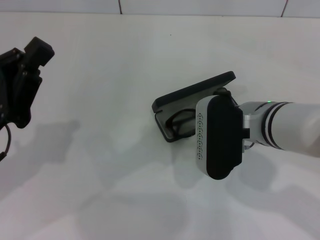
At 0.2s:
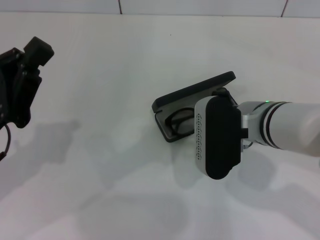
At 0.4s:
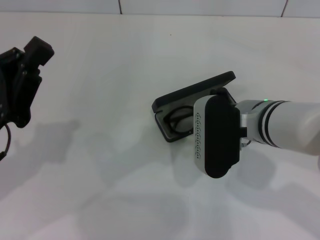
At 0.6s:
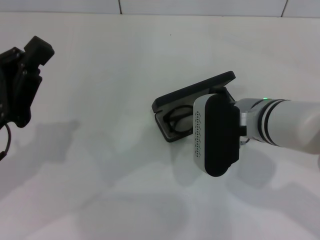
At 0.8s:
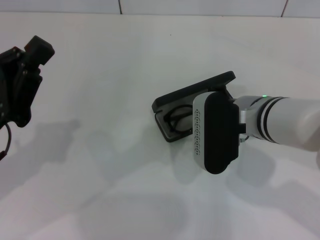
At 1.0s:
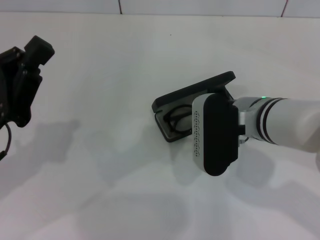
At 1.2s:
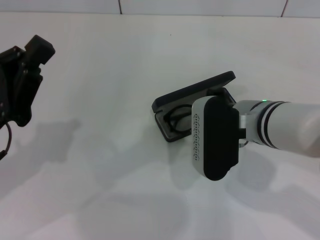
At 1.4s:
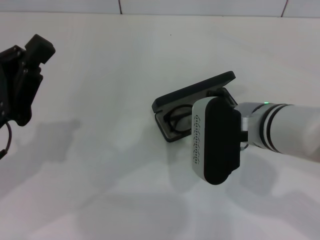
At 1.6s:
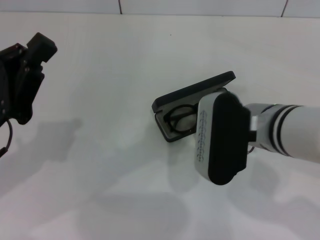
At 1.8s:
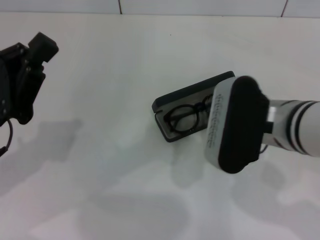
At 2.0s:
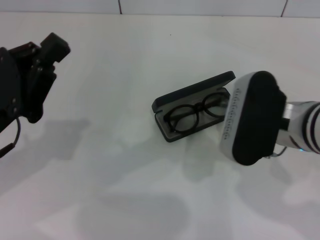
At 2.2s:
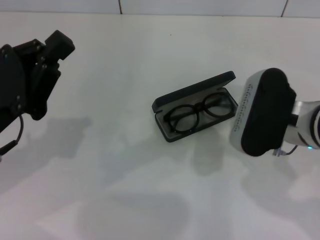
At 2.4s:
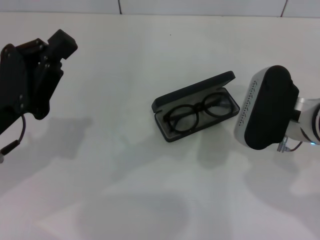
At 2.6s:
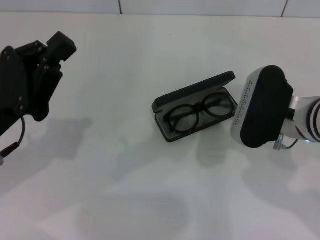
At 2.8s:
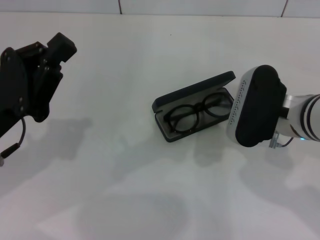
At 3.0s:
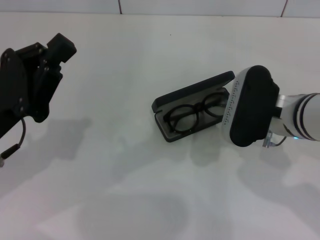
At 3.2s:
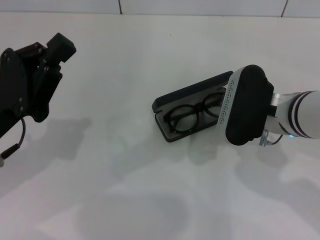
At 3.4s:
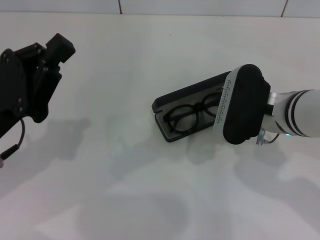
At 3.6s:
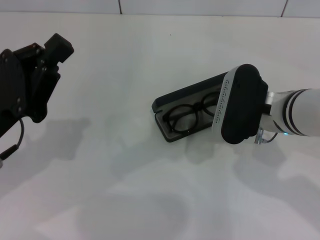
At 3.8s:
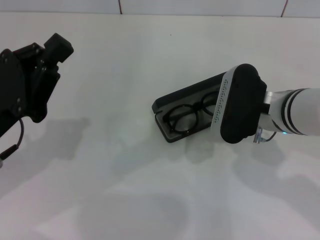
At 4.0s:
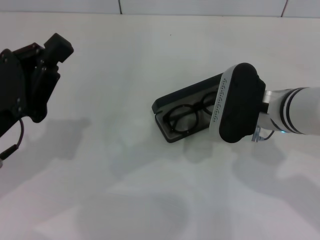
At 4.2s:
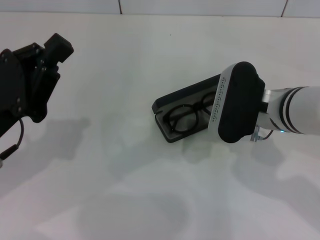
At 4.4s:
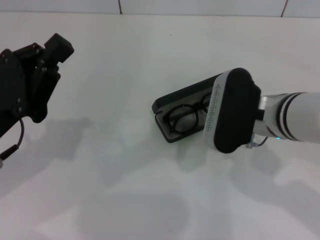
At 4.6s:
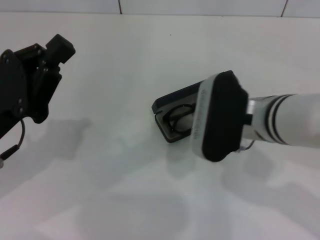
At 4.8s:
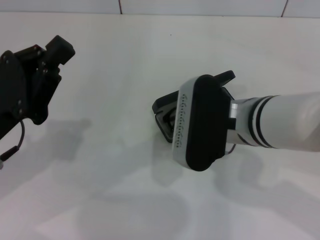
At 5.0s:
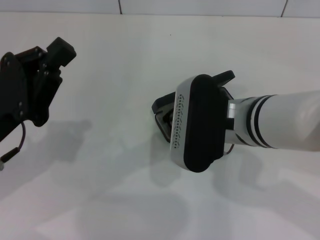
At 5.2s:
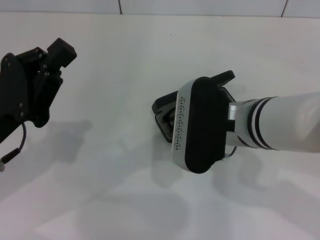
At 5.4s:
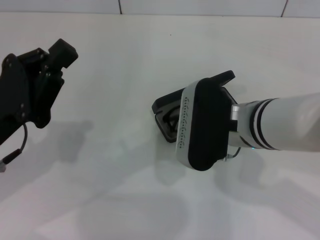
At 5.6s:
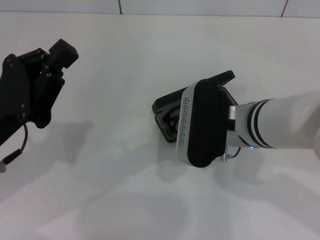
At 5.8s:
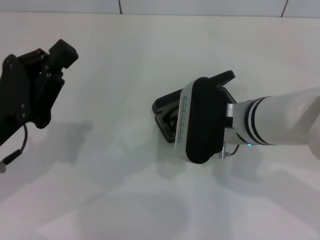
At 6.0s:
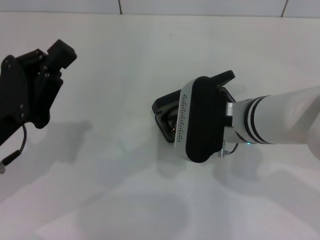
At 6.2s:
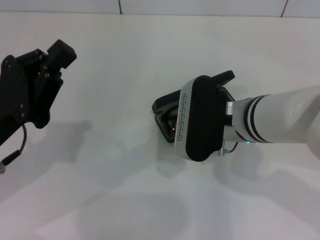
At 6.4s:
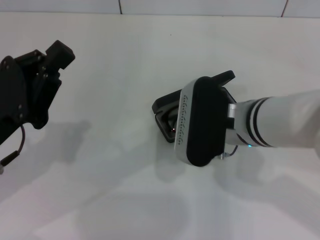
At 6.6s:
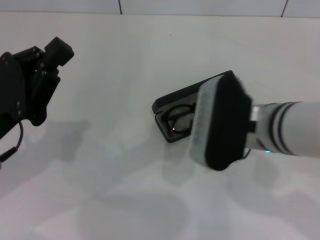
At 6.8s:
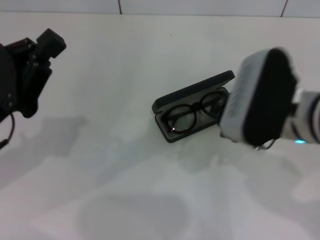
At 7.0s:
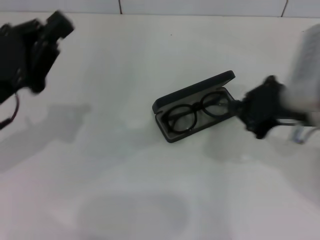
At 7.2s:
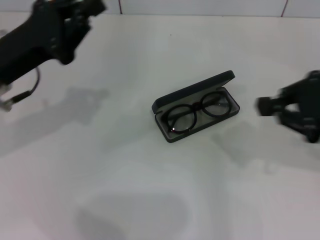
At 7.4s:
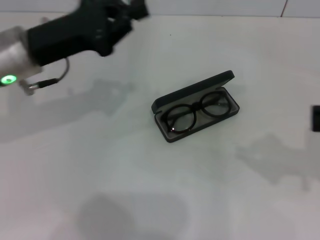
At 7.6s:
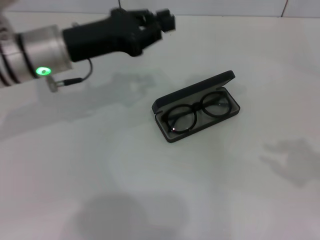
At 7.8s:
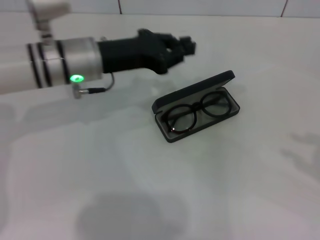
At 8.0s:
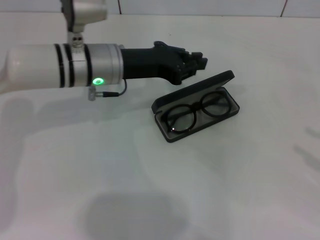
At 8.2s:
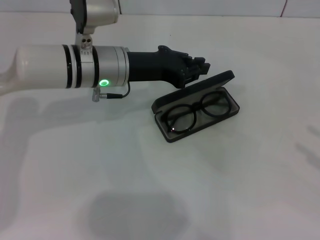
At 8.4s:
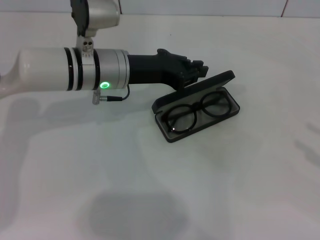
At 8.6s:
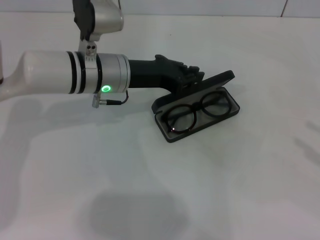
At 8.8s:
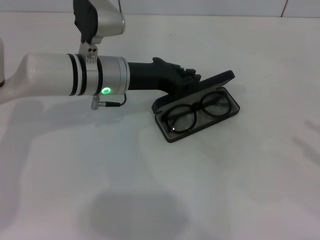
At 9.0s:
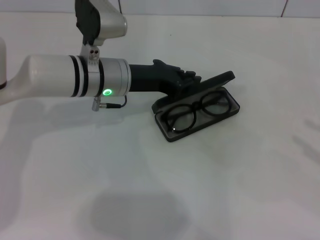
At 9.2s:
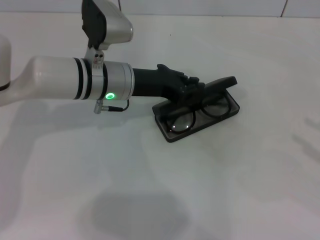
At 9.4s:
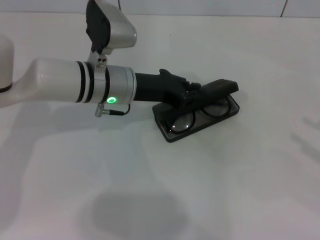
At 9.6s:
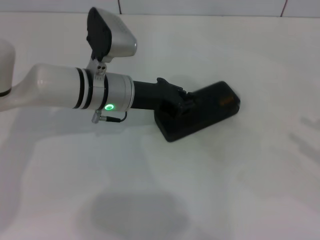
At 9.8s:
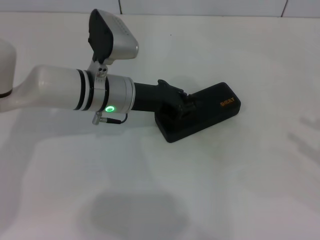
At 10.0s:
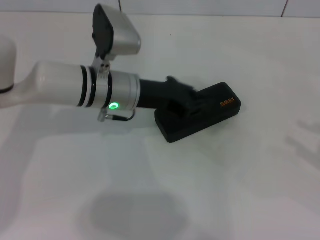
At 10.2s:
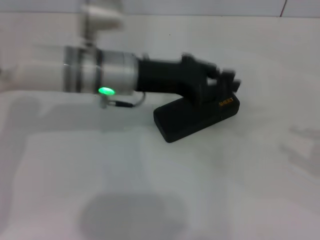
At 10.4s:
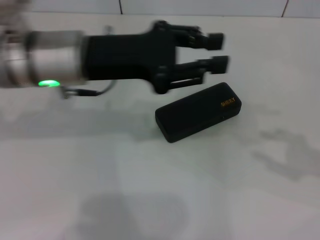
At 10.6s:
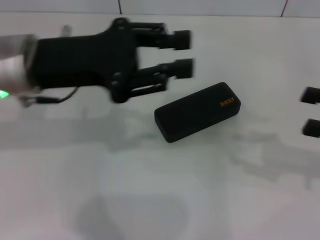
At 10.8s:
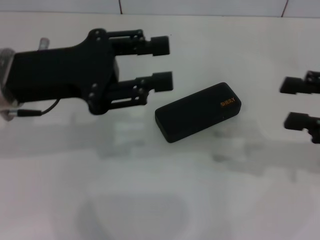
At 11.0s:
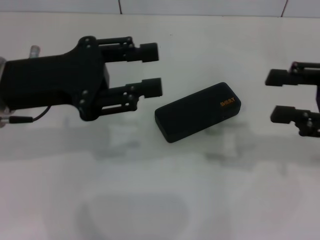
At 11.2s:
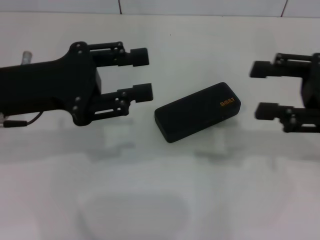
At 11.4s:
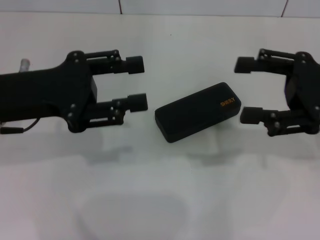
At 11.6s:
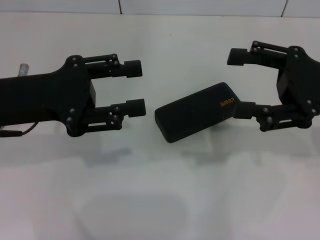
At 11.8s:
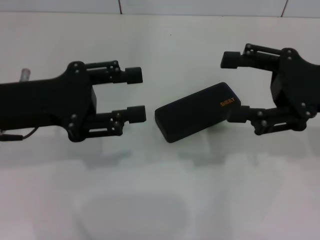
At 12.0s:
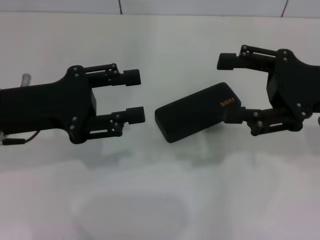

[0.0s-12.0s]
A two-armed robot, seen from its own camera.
Step, 0.0s to 9.6s: Close the glasses case with your left hand.
0.0s to 1.6s: The grippers make only small movements.
1.6s to 3.0s: The right gripper moves about 5 cm.
3.0s to 4.4s: The grippers move only a little.
4.4s to 6.0s: The grippers stay close to where they were, moving slightly.
6.0s to 7.6s: The right gripper travels to the right by roughly 30 cm. Meanwhile the left gripper shifts approximately 15 cm forward and to the right.
7.6s to 9.0s: The two grippers go about 10 cm to the right and downward. The right gripper opens up.
9.0s to 10.4s: The right gripper shifts roughly 5 cm to the left. The left gripper goes approximately 10 cm upward and backward.
10.4s to 12.0s: The right gripper travels to the left and forward by roughly 15 cm, and opens up; the left gripper travels to the left and backward by approximately 10 cm, and opens up.

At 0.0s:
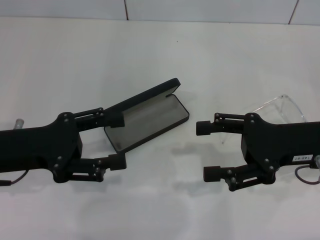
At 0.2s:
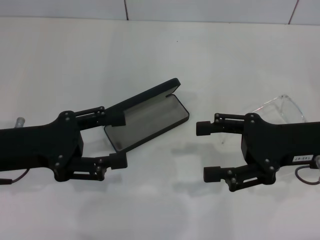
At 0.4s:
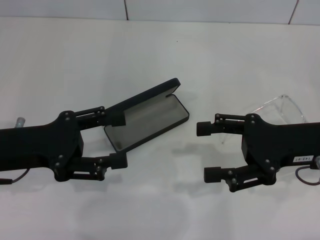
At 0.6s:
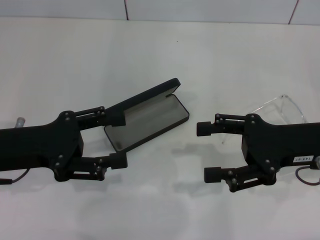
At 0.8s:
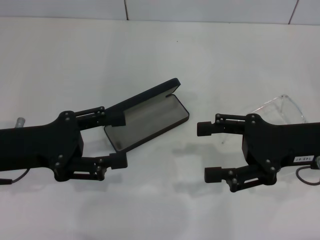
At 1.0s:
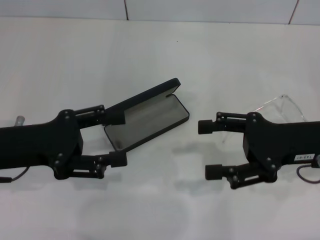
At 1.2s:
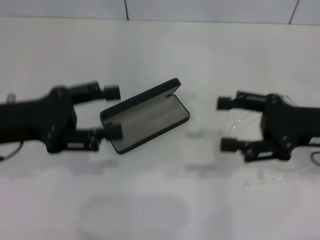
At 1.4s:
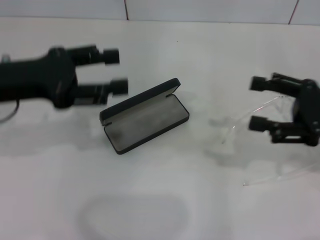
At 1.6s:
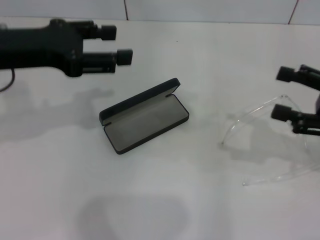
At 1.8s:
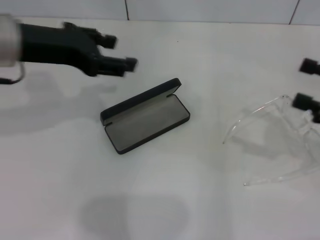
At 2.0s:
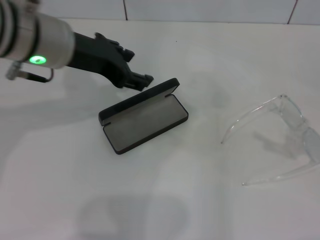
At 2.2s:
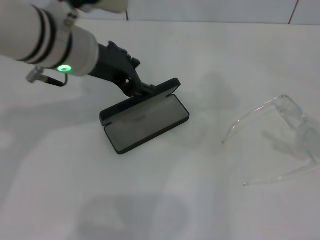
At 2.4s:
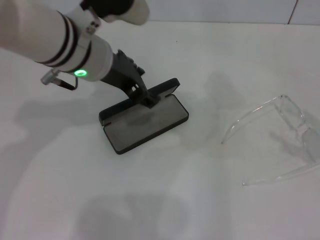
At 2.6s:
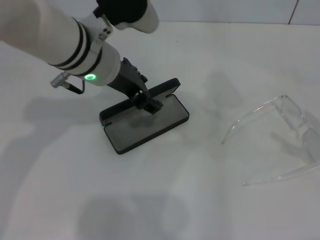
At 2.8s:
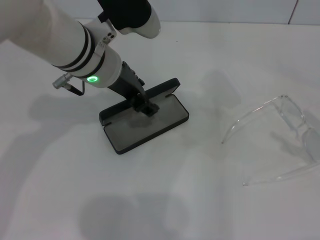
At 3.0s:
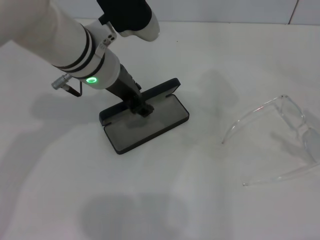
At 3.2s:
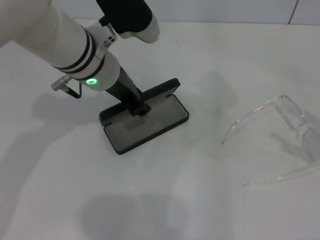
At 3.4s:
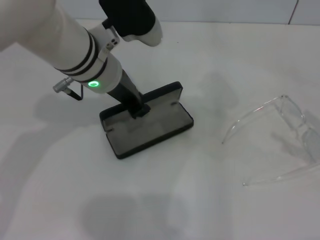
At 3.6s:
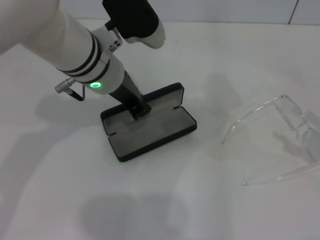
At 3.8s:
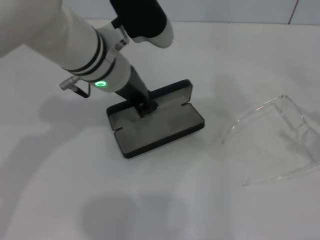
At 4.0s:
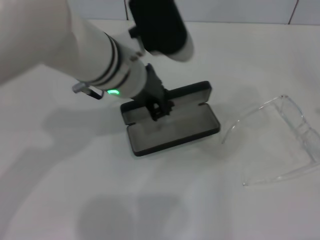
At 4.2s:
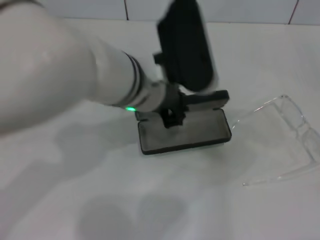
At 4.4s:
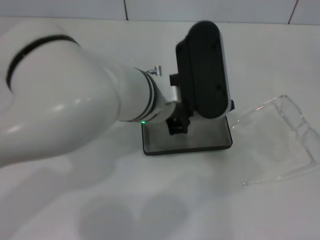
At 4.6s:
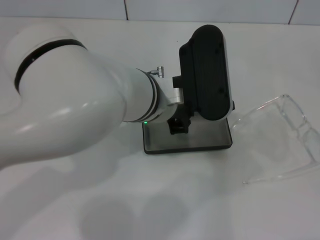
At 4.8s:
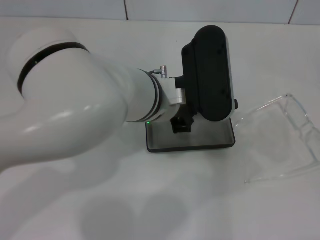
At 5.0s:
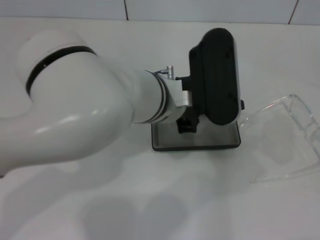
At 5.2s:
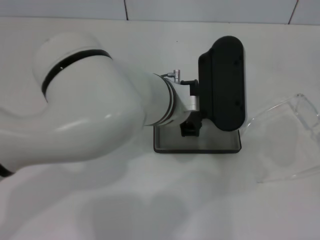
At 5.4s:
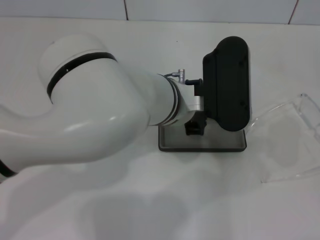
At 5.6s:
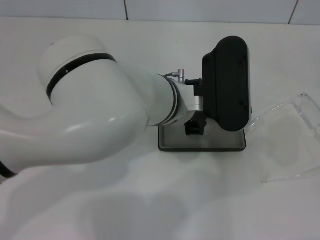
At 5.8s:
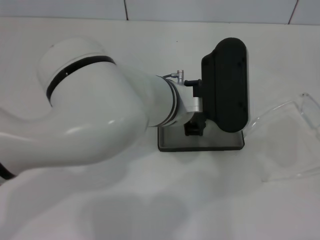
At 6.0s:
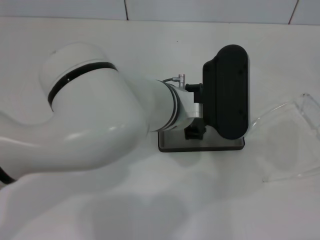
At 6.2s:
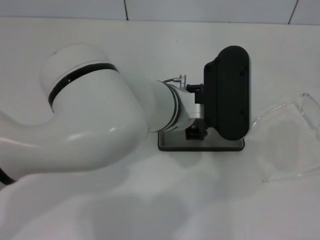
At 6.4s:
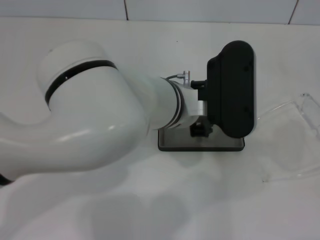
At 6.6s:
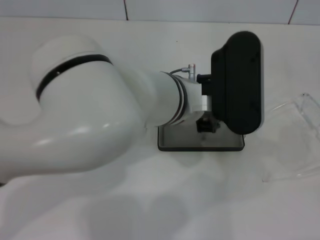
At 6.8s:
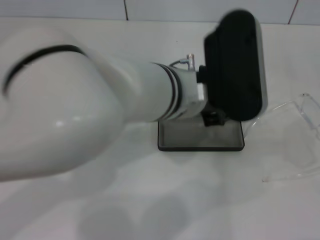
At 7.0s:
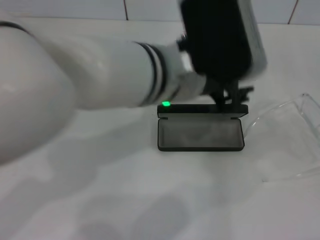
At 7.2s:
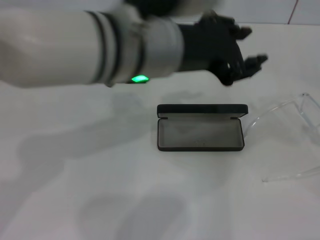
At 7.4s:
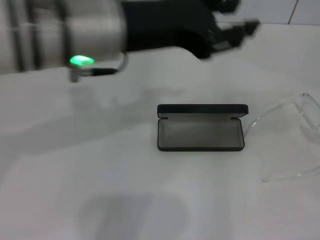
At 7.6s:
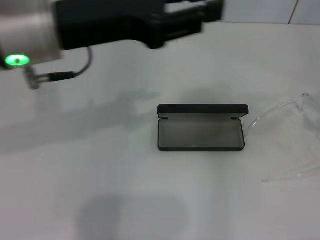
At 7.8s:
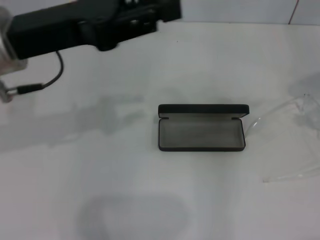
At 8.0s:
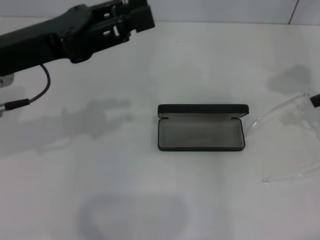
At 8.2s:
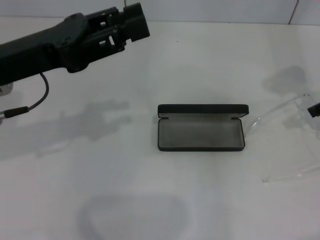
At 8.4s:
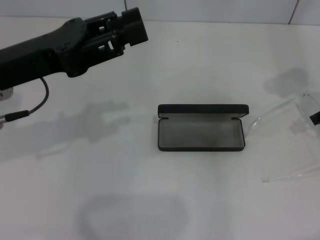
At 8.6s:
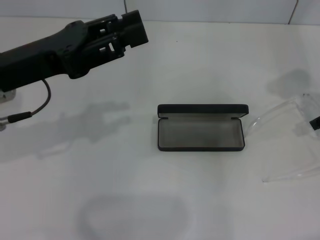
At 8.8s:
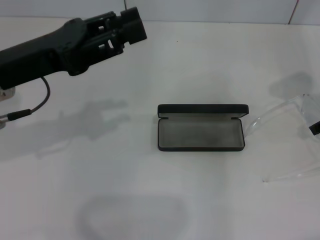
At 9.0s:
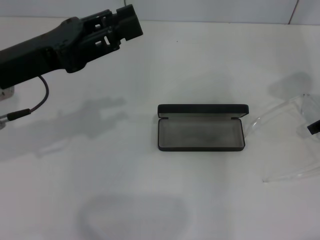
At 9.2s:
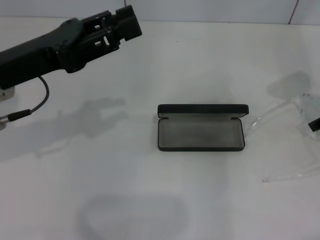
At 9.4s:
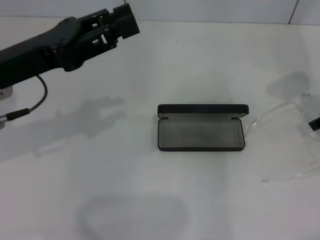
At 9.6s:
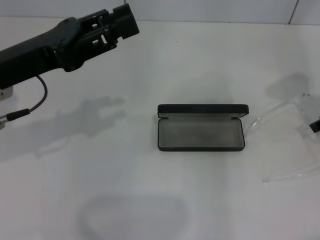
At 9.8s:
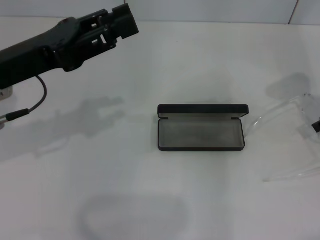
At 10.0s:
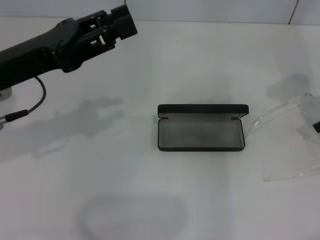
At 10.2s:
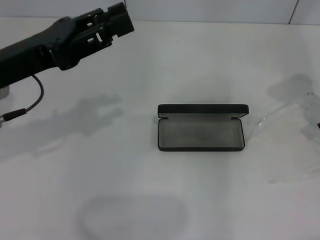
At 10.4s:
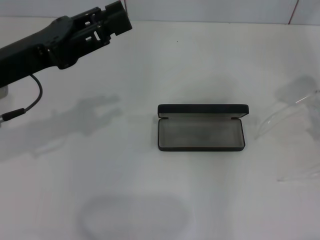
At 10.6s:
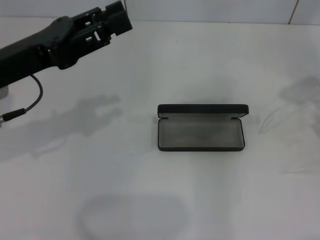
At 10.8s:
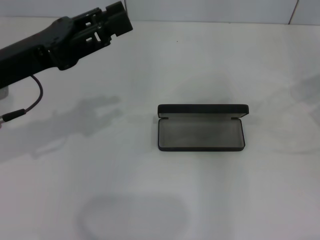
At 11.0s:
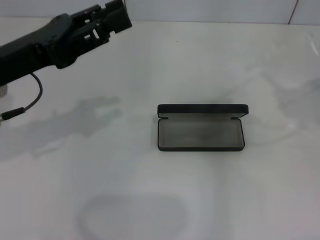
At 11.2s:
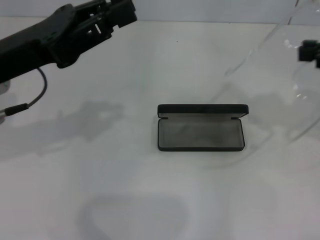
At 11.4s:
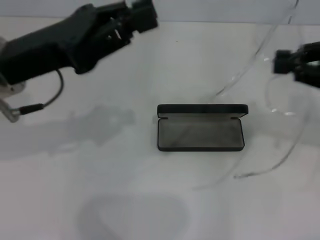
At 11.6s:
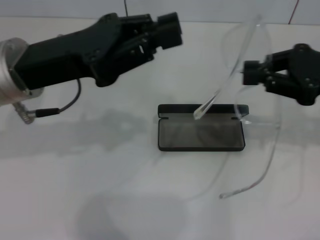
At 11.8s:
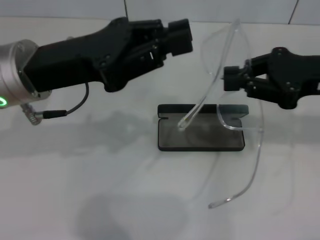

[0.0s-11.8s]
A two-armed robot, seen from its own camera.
Step, 0.0s to 3.6s: Grab the glasses case with your left hand.
Step, 3.8s to 6.0s: Place the glasses case in the center of the table with your left hand.
Step, 6.2s to 10.2s: Grab the eyeglass frame with your right hand.
0.0s to 1.4s: The left gripper shifts about 5 cm upward. The right gripper shifts about 5 cm to the right.
1.4s to 3.0s: The right gripper travels to the right and backward by some 10 cm. The left gripper shifts approximately 15 cm to the right and forward.
3.0s to 4.4s: The right gripper goes some 5 cm backward. Meanwhile the left gripper goes approximately 10 cm to the right and backward, and closes up.
4.4s to 6.0s: There are only small adjustments of the grippers.
6.0s to 7.4s: The left gripper is displaced upward and to the left by about 15 cm, while the right gripper goes approximately 15 cm forward and upward.
7.4s to 8.8s: The right gripper goes some 15 cm to the left and forward; the left gripper travels to the left and downward by some 15 cm.
8.8s to 10.4s: The right gripper closes its fingers.
10.4s to 11.8s: The right gripper is displaced to the left by about 5 cm; the left gripper travels to the right by roughly 5 cm.
